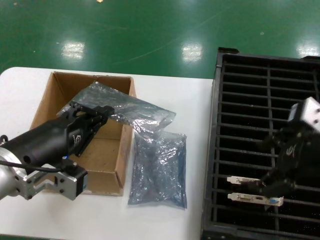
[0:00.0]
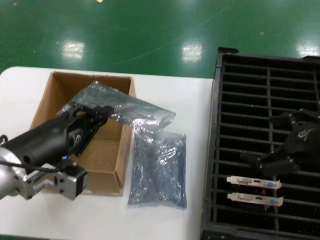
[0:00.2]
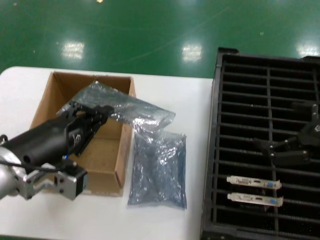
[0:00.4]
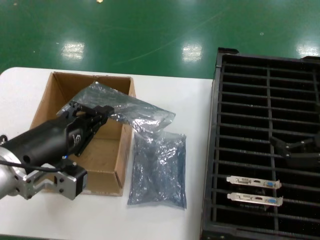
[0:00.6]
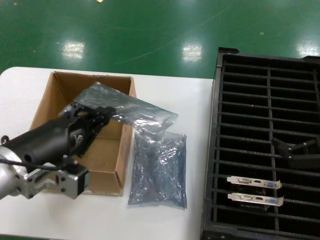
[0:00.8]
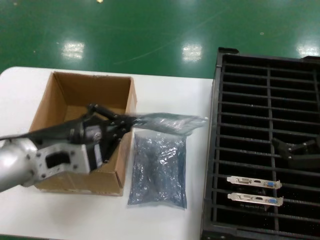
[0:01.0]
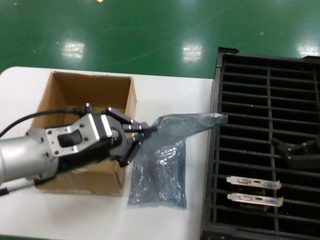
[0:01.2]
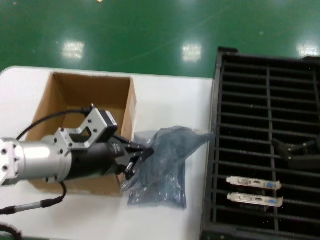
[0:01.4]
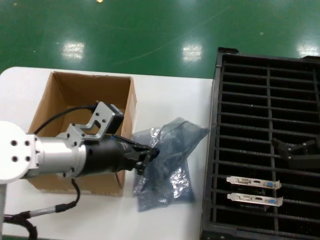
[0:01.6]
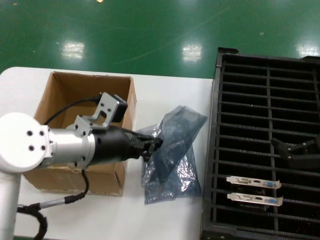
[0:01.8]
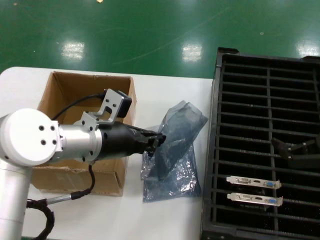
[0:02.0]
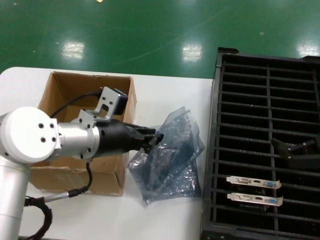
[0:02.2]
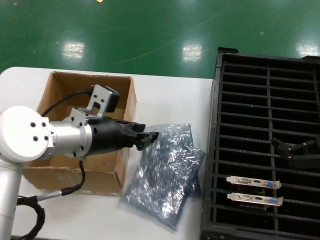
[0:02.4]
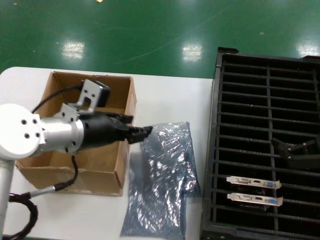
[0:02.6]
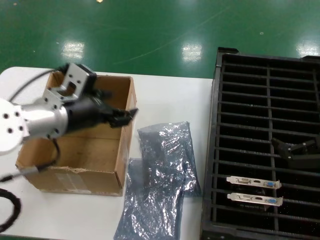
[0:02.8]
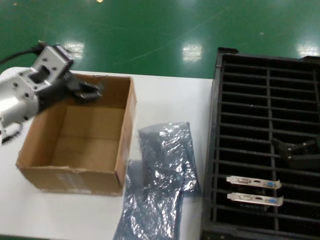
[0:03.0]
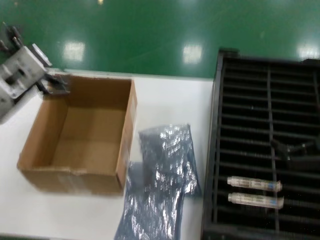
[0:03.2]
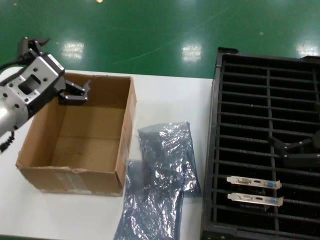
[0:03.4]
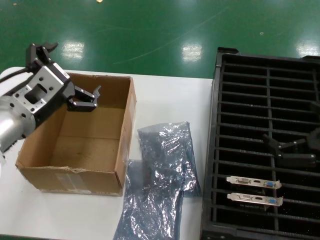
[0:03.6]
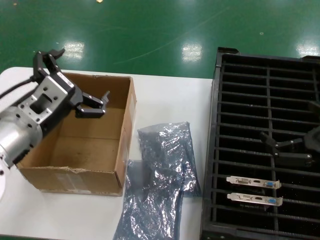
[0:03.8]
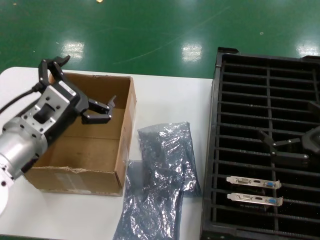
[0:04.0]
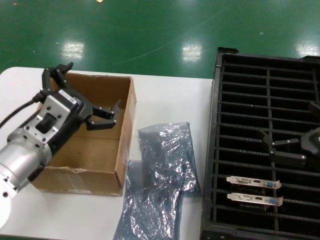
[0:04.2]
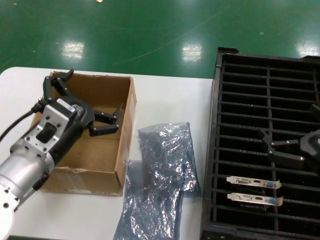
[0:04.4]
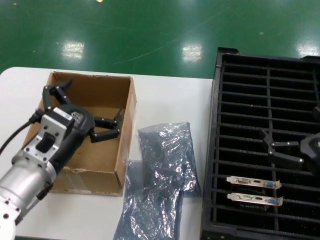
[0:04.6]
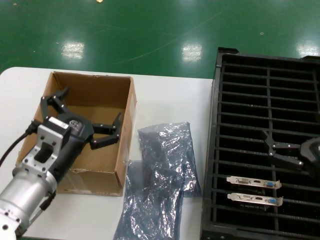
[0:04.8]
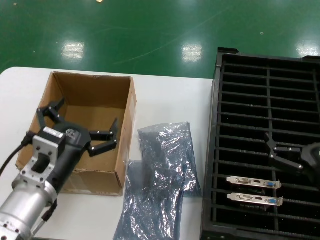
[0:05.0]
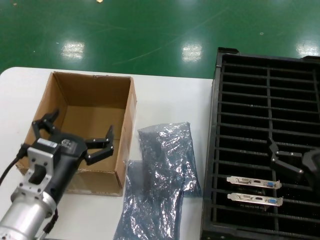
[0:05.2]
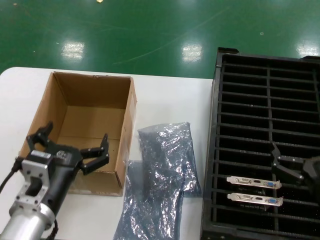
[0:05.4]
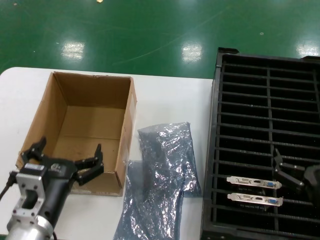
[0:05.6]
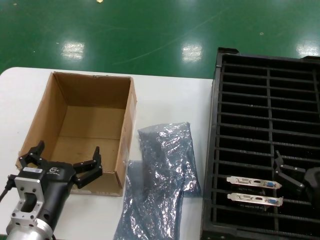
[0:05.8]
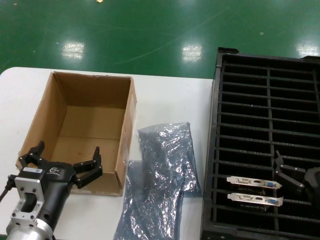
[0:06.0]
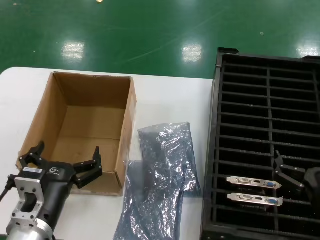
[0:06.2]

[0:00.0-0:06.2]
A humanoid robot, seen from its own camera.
Task of the whole recording: take out graphics card from box remove packaging put into black container.
Step, 0:00.2 to 0:03.0: Place the down the bag.
0:00.0 to 0:01.6: The right hand travels to the right and downward by approximately 10 cm; the left hand is displaced forward by about 10 cm.
0:01.6 to 0:03.2: The left hand is displaced to the left and upward by about 10 cm.
0:03.2 to 0:04.6: Both hands travel together downward, about 10 cm.
0:04.6 to 0:06.2: The right hand shifts about 10 cm downward, while the left hand heads downward and backward, covering approximately 10 cm.
